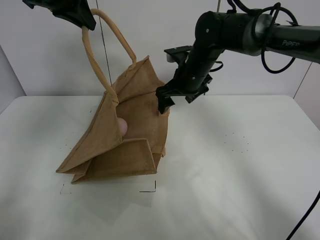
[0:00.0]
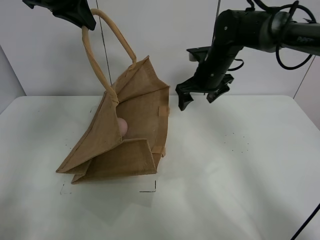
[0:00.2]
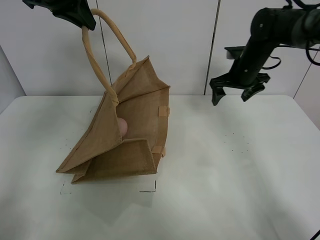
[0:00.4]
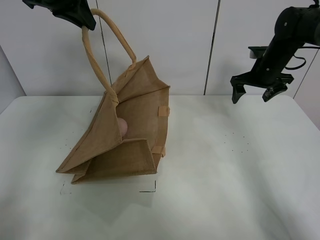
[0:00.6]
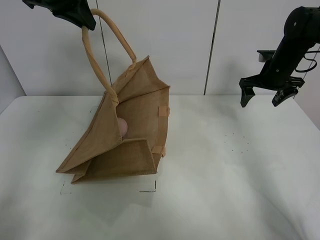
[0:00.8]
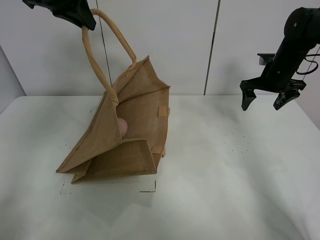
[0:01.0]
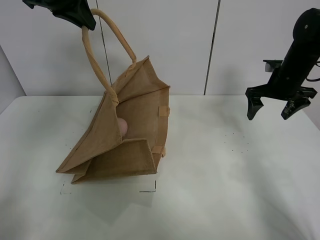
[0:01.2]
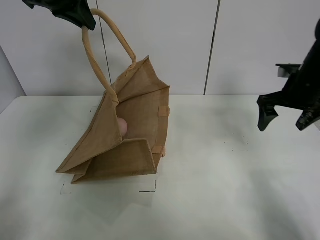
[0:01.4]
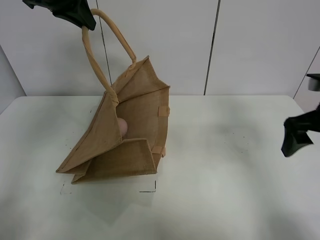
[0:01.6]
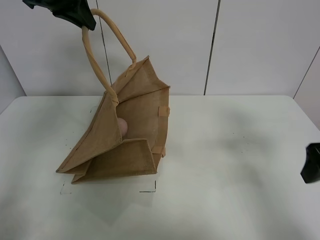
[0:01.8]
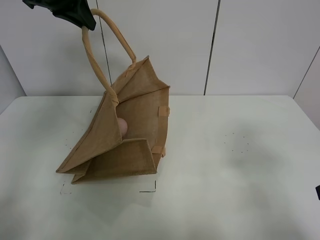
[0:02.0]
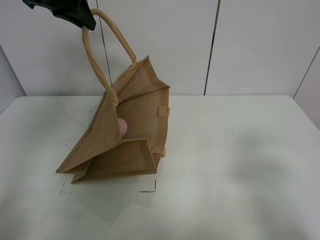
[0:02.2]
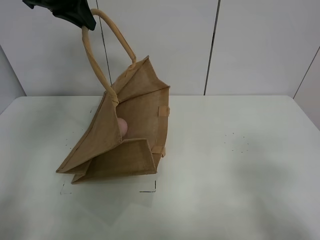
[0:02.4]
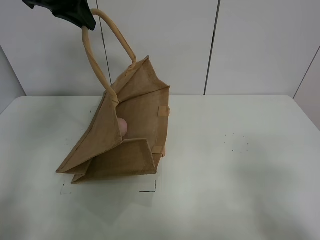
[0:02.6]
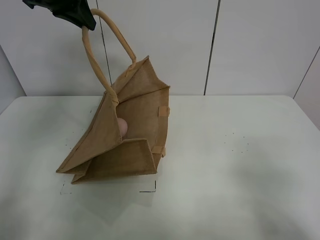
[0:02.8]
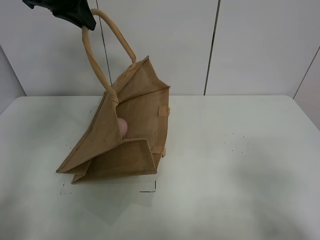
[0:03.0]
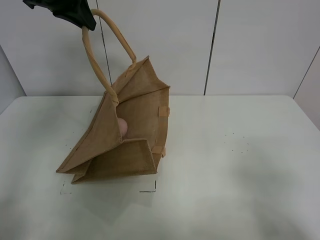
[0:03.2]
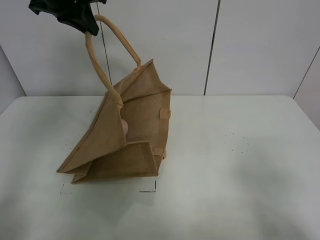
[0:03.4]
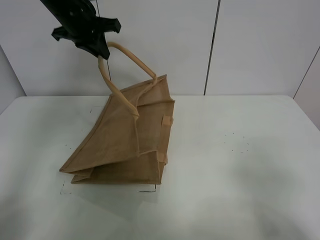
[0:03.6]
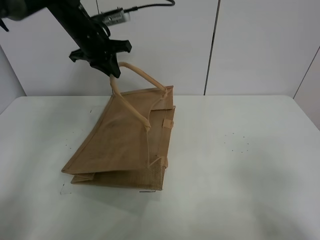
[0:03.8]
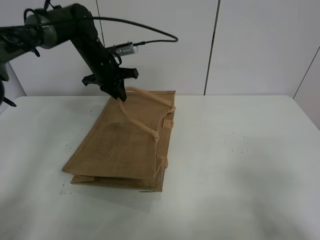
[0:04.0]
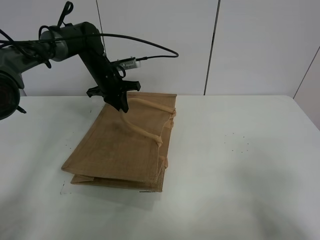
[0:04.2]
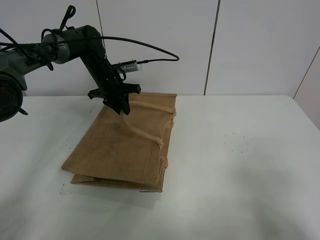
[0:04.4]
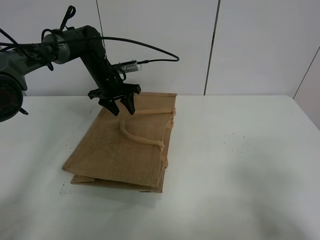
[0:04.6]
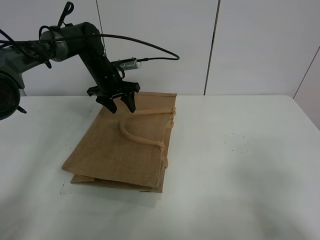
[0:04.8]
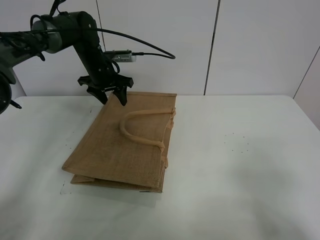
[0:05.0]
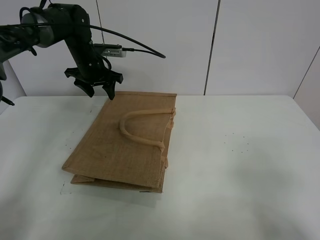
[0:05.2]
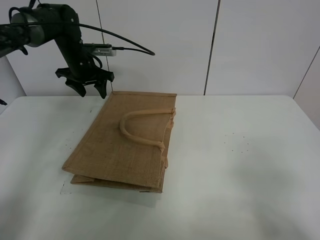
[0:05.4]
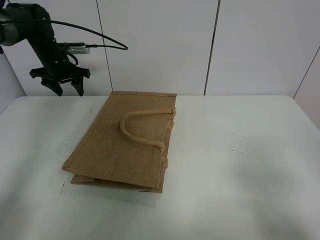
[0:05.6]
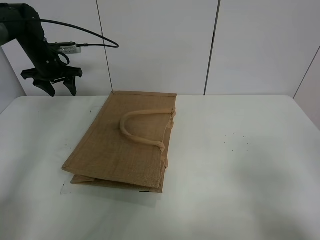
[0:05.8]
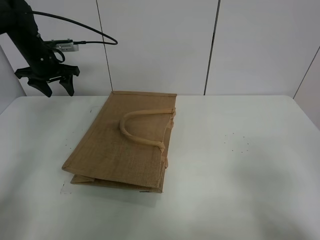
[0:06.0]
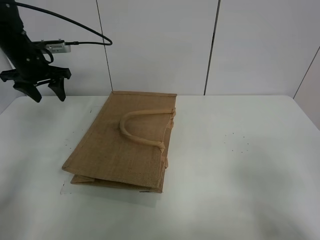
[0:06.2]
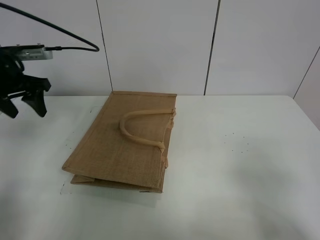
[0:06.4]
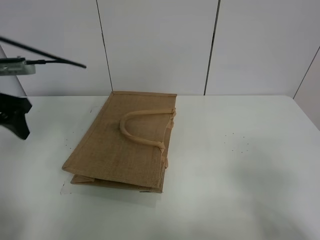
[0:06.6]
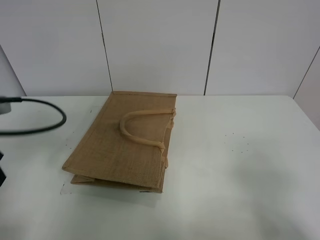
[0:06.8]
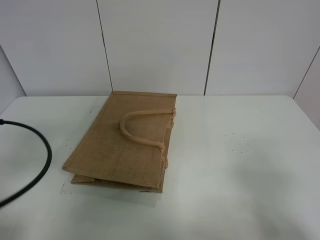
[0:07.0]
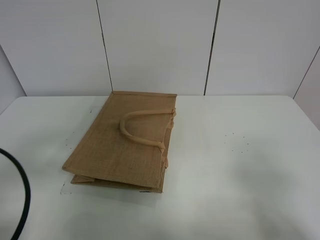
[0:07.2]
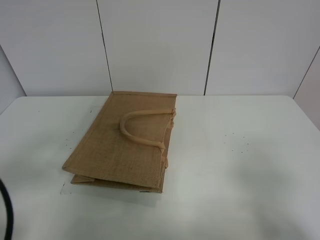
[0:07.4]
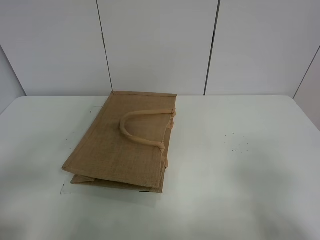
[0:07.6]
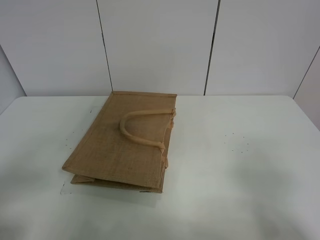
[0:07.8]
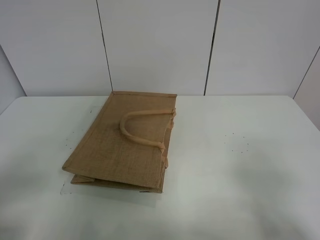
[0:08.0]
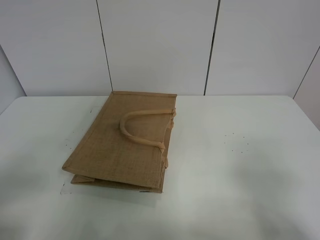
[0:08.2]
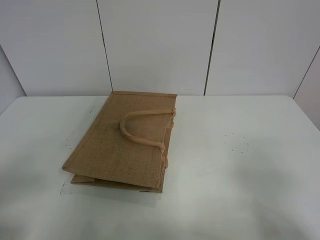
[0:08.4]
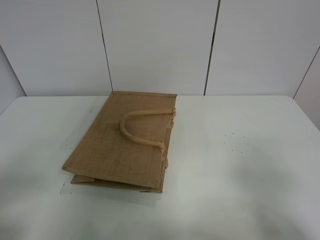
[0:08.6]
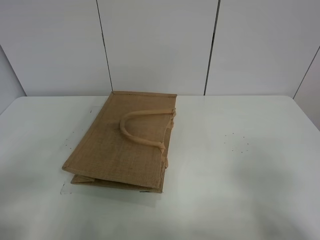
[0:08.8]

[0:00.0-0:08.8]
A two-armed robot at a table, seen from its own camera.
Task of the whole recording: open the brown linen bag and put the peach in the bag.
Step, 0:00.0 to 0:05.2: Put down the handbag with left grippe.
0:00.0 to 0:01.4: The right gripper is displaced to the right and backward by about 20 cm.
0:01.4 to 0:03.0: The right gripper travels backward by approximately 30 cm.
0:03.0 to 0:04.4: The left gripper is displaced downward and forward by approximately 25 cm, and opens up.
0:04.4 to 0:05.8: The left gripper heads to the left, covering some 15 cm, and opens its fingers.
0:05.8 to 0:07.4: The left gripper goes approximately 40 cm backward.

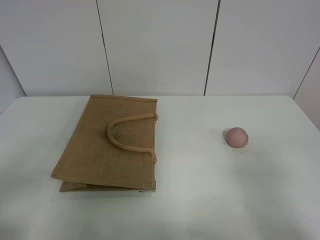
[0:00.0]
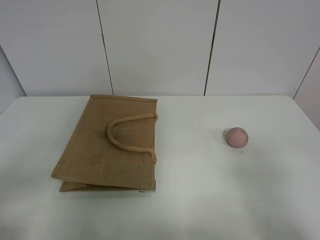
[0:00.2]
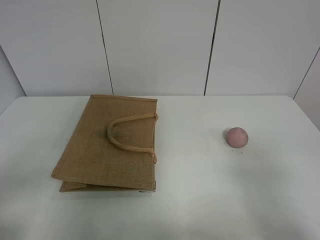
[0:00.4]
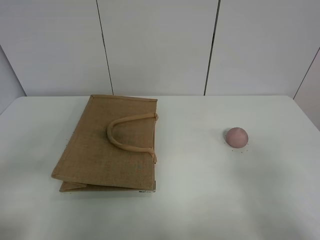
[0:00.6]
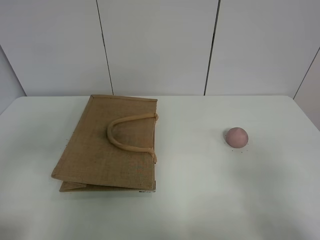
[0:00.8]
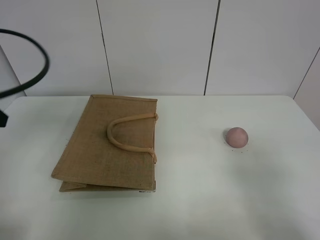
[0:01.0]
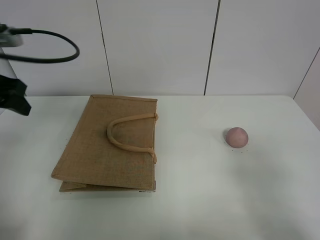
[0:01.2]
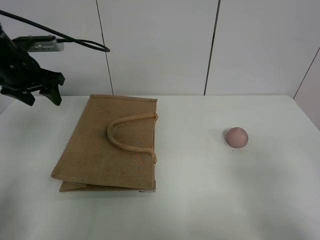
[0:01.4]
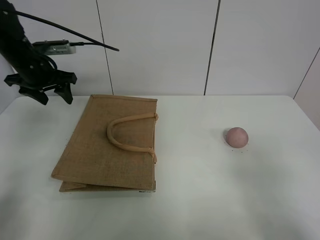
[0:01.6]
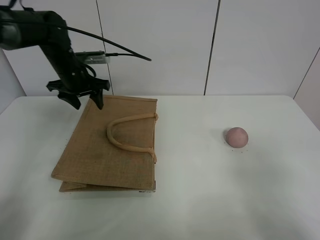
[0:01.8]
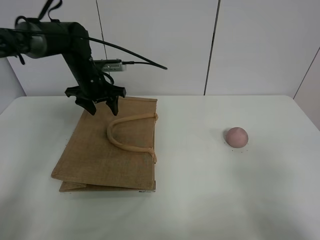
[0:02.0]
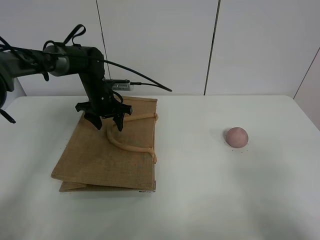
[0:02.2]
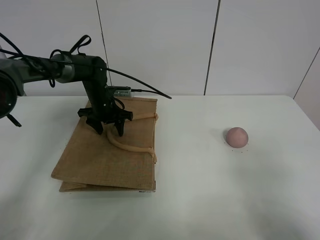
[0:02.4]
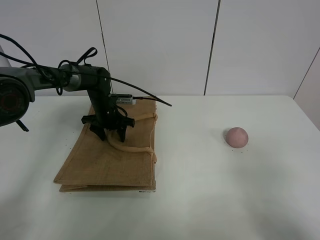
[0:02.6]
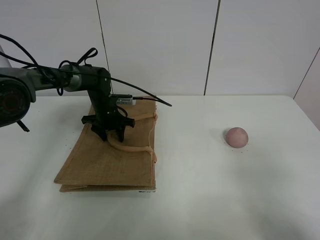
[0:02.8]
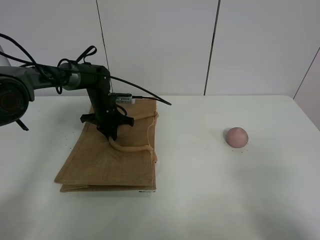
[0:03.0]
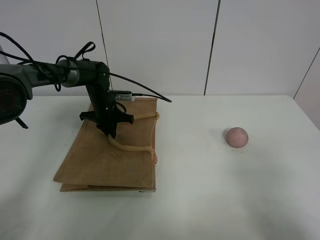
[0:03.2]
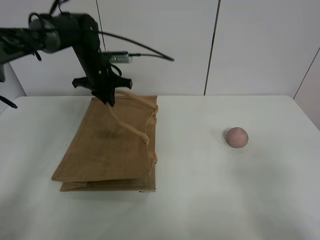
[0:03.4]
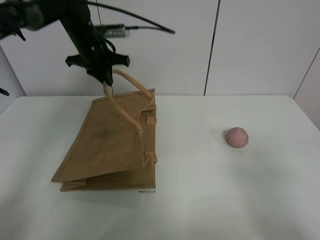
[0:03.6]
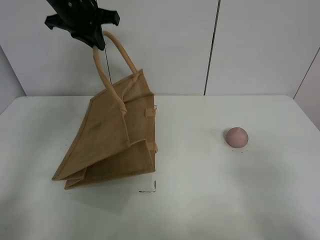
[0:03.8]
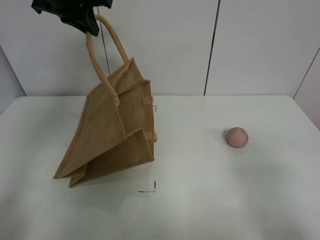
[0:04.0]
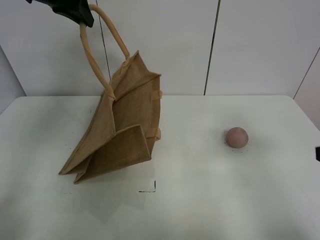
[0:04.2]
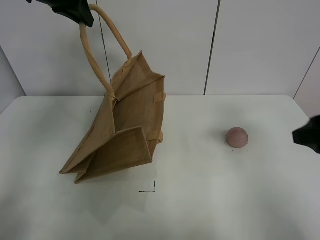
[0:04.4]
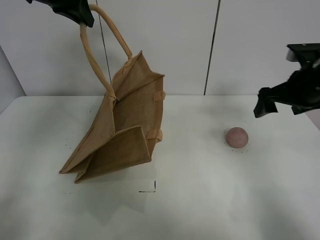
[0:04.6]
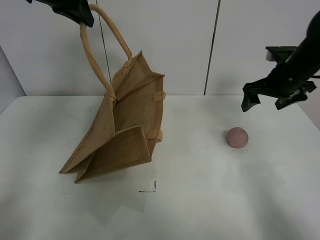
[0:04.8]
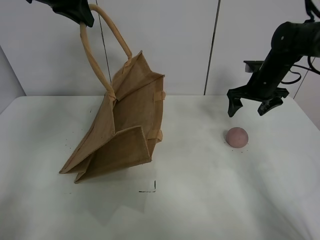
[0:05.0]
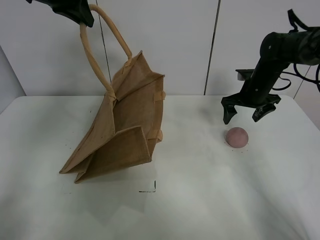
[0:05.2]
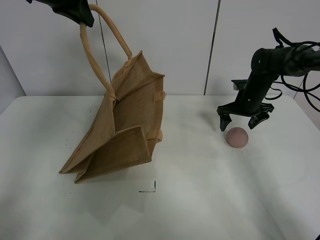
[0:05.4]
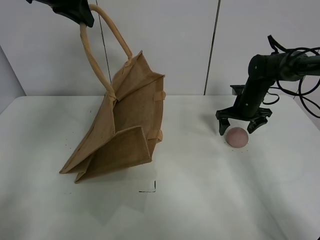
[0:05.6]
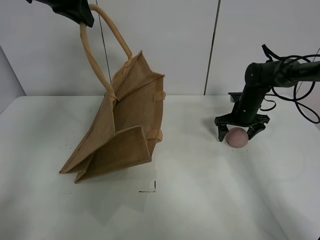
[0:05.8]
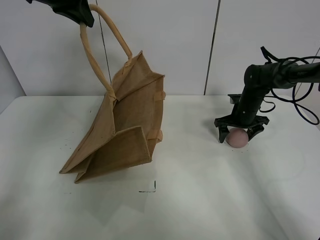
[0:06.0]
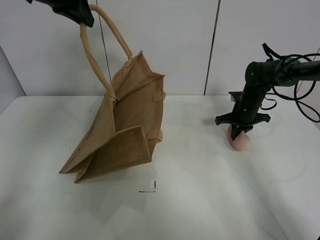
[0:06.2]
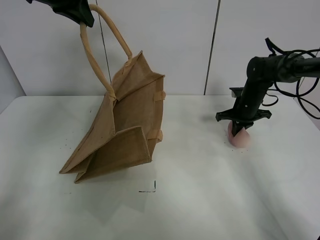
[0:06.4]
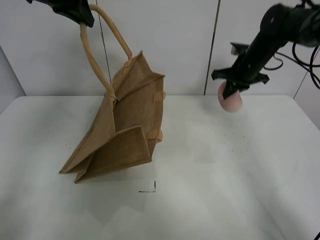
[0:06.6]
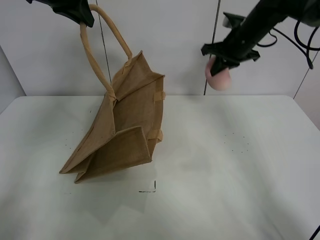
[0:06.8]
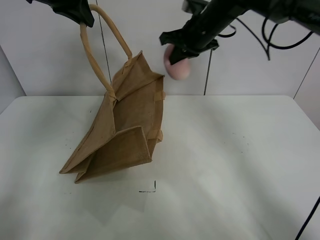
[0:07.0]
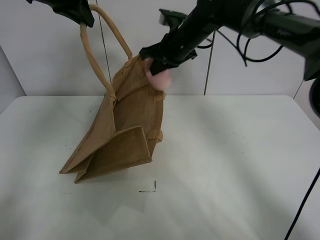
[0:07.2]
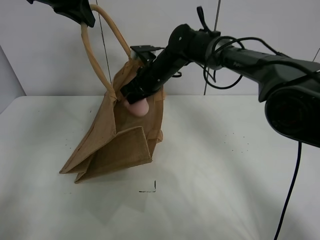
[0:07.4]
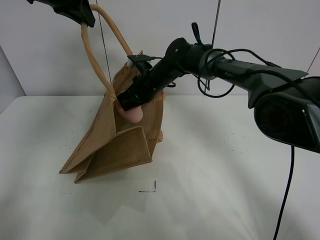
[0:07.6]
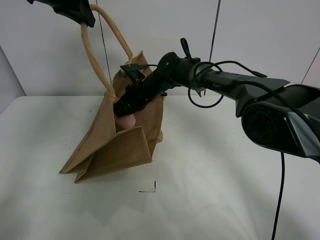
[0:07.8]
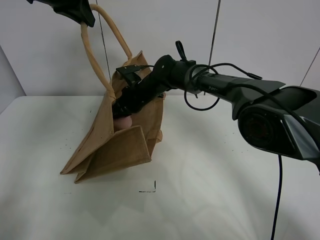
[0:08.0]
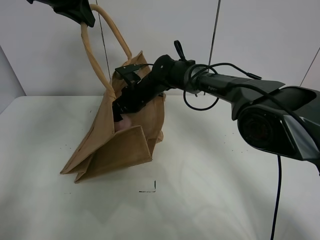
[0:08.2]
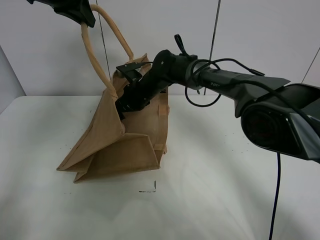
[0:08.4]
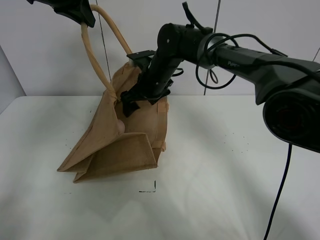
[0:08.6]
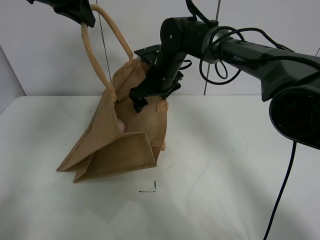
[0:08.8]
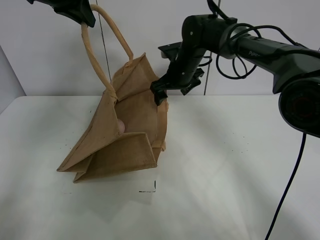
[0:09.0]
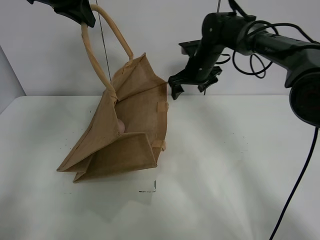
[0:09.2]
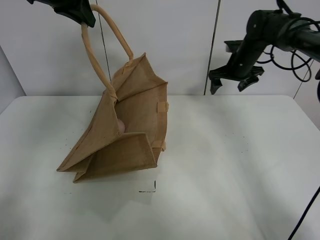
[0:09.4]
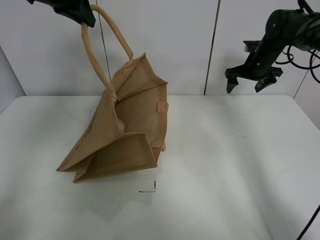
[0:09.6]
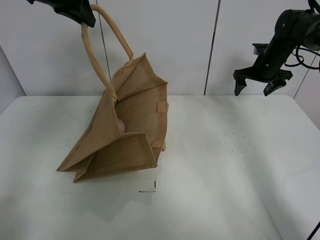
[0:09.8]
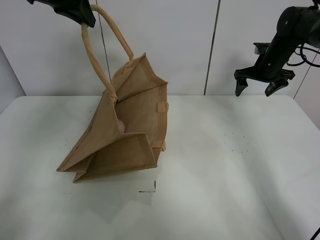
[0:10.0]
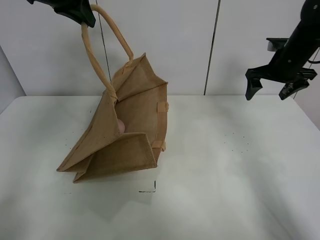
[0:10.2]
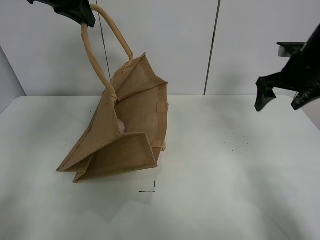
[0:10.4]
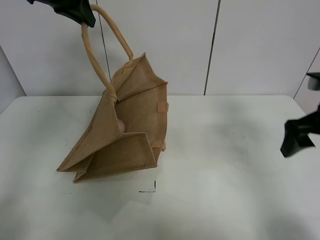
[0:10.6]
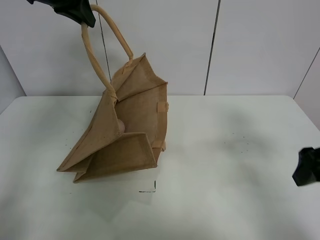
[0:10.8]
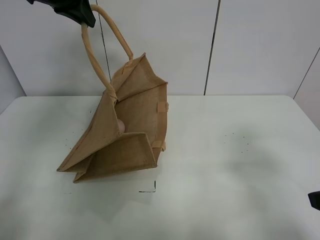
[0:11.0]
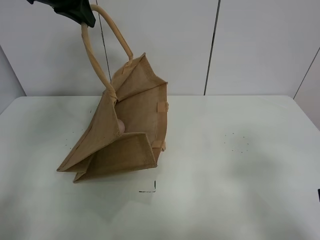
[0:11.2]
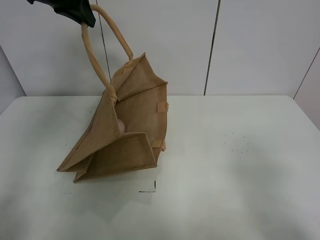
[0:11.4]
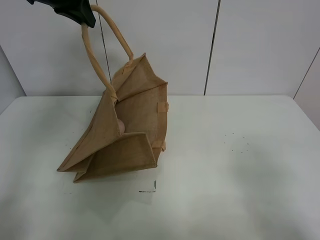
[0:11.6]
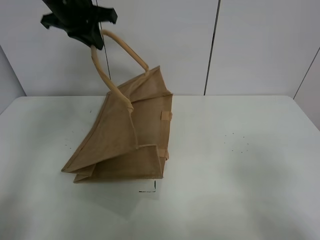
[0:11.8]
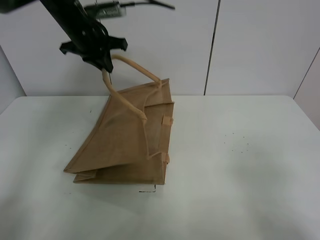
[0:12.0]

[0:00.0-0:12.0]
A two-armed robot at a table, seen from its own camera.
Task of the whole recording: open the brown linen bag and put the peach in the bag.
Step, 0:00.0 to 0:04.0: Lift the handbag with left gripper.
Step, 0:04.2 to 0:06.2: Grasp the peach with right gripper.
Step, 0:06.4 to 0:09.2: Place the peach in the handbag with right gripper.
0:00.0 to 0:01.6: The left gripper shifts about 40 cm forward.
0:01.6 to 0:03.0: The left gripper is displaced downward and to the right by about 20 cm, and closes its fingers.
0:03.0 to 0:04.4: The left gripper travels upward by some 35 cm. The right gripper moves forward, approximately 20 cm.
0:04.4 to 0:06.0: The right gripper heads forward and downward, covering about 30 cm.
0:06.0 to 0:07.6: The right gripper moves to the left, about 25 cm, and closes up.
0:07.6 to 0:09.0: The right gripper is displaced to the right by approximately 10 cm, and opens.
0:09.0 to 0:10.4: The right gripper shifts some 25 cm to the right and backward.
0:10.4 to 0:12.0: The left gripper is displaced downward and forward by approximately 15 cm. The right gripper shifts roughly 35 cm backward.

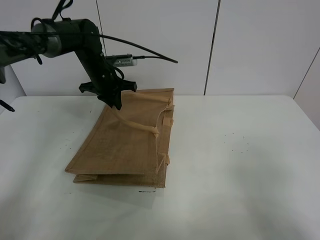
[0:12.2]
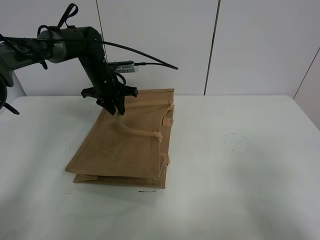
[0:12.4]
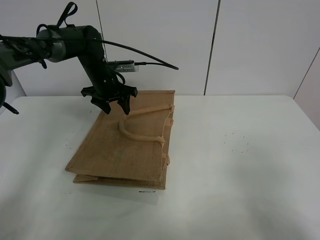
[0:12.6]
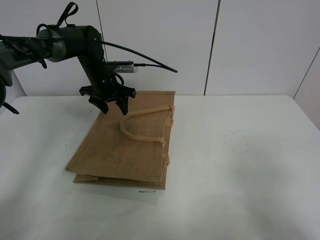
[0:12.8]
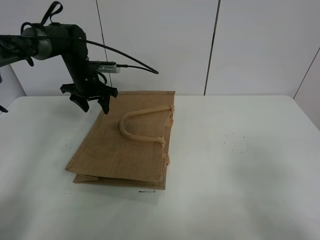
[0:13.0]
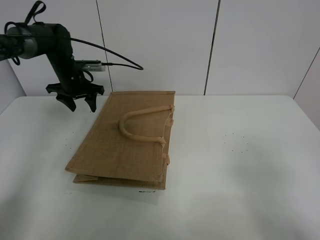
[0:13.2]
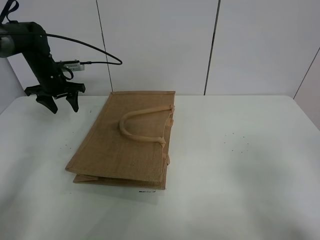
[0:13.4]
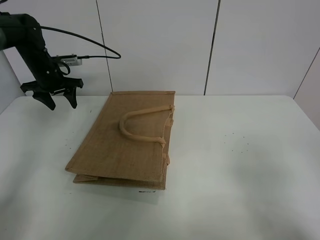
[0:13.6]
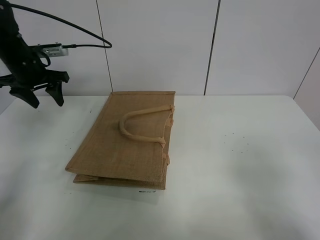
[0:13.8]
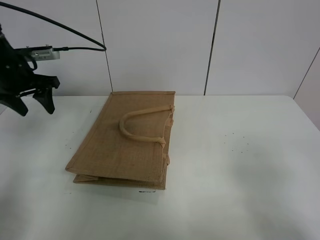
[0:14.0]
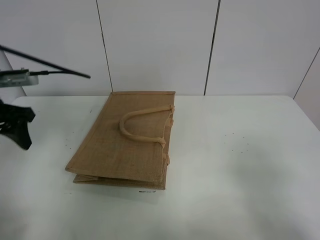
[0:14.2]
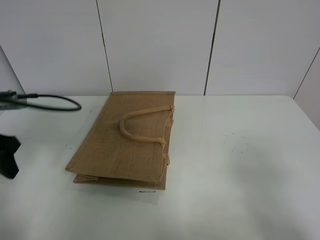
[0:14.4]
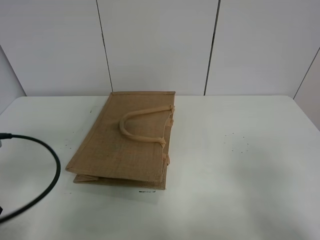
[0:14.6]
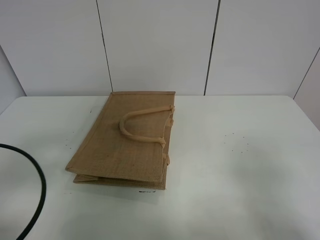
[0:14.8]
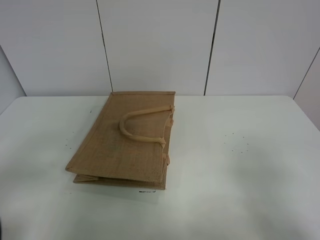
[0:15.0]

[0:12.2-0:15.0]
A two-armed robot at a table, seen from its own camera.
Task of the whole recording: open the brown linen bag and put the peach in the bag.
0:12.2 to 0:13.6: The left gripper shifts some 15 cm to the left, and opens.
0:13.6 to 0:15.0: The left gripper shifts about 40 cm backward.
